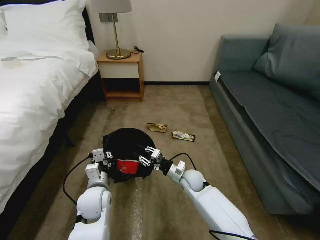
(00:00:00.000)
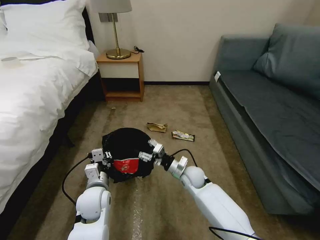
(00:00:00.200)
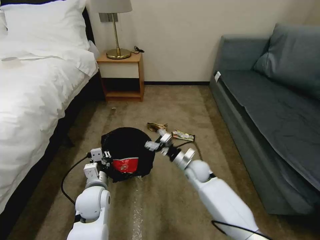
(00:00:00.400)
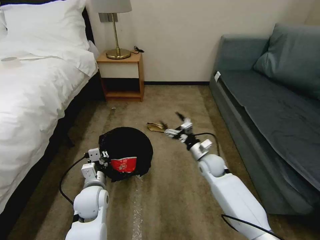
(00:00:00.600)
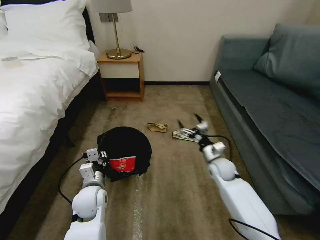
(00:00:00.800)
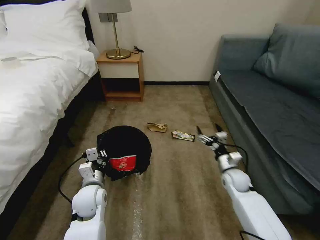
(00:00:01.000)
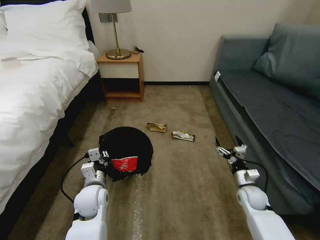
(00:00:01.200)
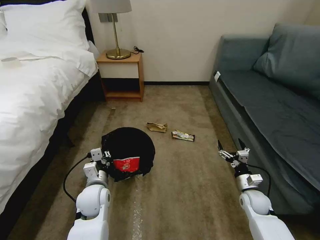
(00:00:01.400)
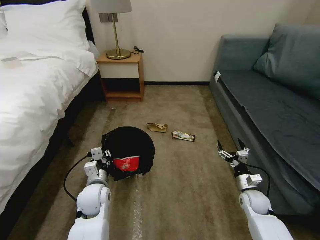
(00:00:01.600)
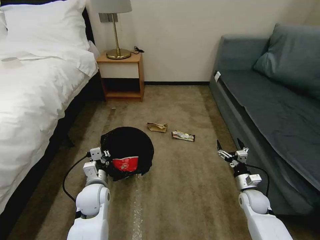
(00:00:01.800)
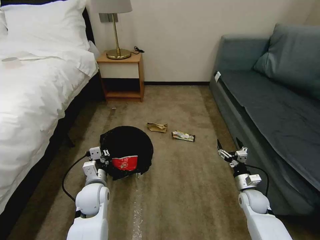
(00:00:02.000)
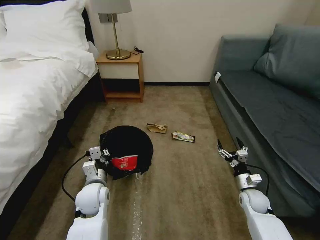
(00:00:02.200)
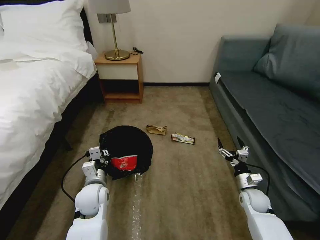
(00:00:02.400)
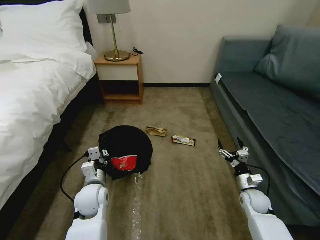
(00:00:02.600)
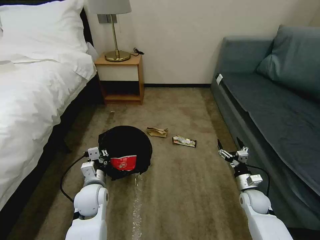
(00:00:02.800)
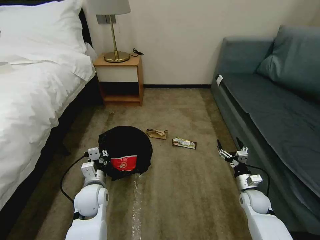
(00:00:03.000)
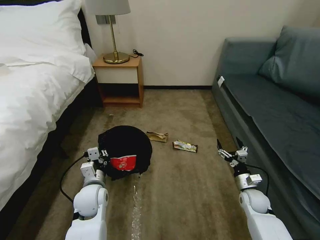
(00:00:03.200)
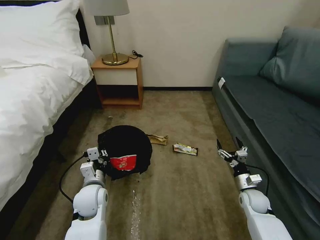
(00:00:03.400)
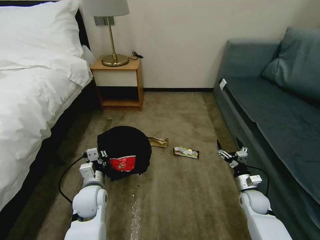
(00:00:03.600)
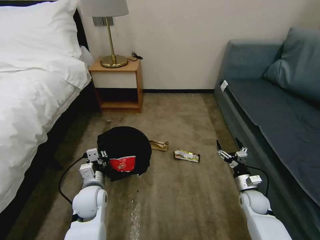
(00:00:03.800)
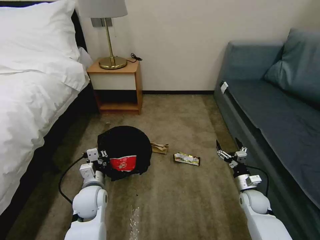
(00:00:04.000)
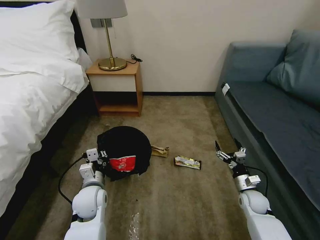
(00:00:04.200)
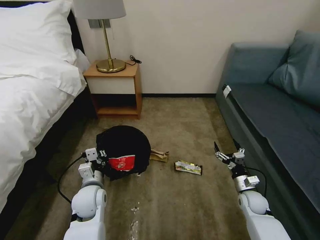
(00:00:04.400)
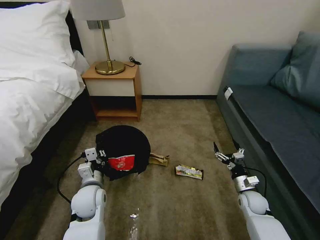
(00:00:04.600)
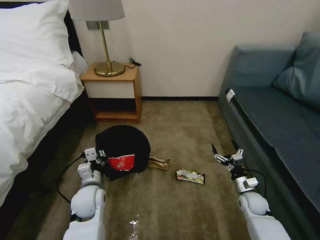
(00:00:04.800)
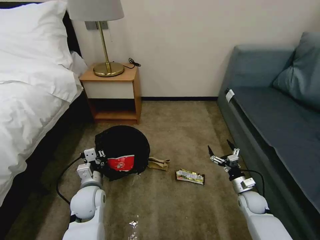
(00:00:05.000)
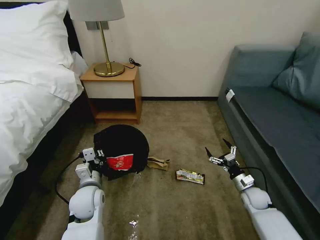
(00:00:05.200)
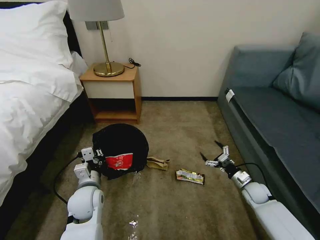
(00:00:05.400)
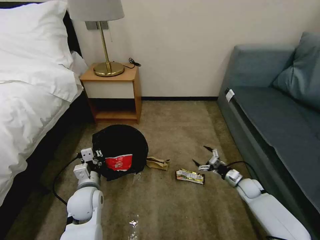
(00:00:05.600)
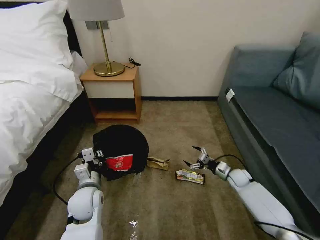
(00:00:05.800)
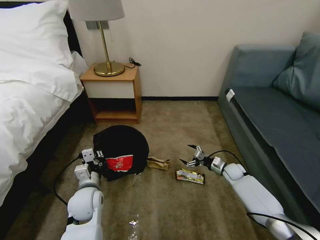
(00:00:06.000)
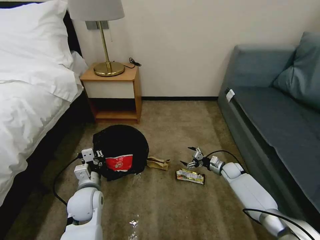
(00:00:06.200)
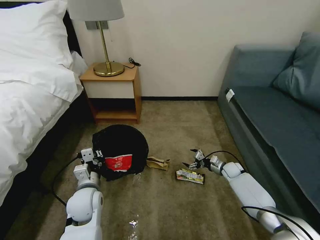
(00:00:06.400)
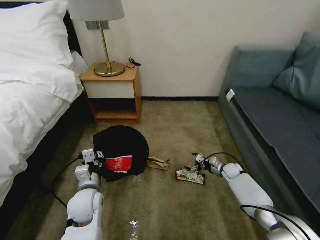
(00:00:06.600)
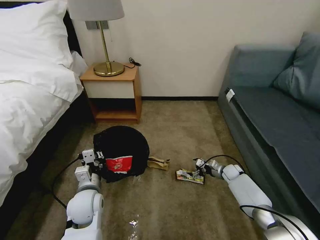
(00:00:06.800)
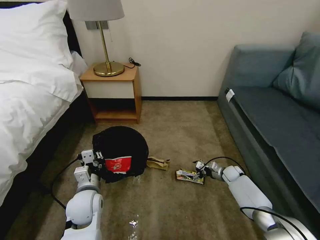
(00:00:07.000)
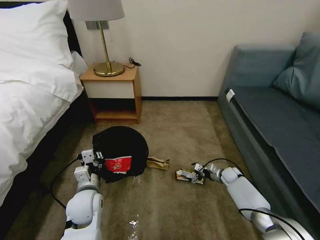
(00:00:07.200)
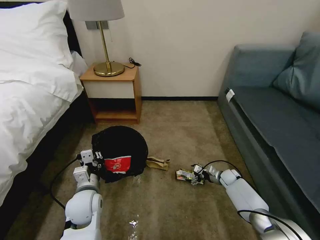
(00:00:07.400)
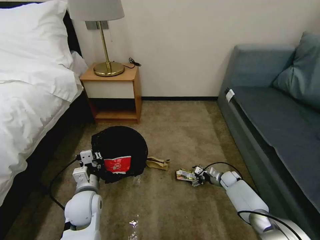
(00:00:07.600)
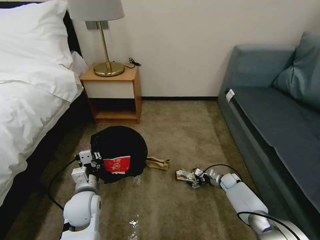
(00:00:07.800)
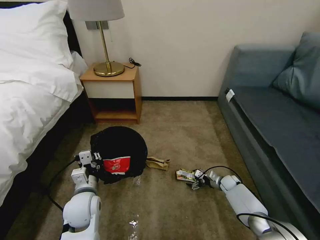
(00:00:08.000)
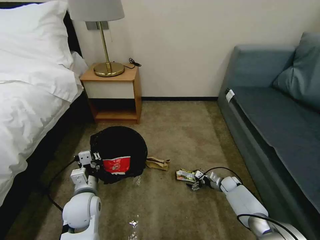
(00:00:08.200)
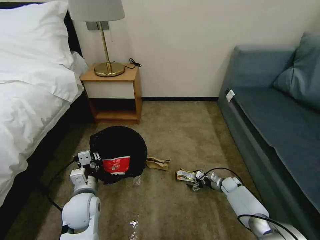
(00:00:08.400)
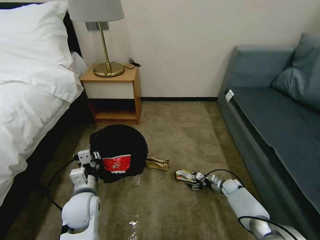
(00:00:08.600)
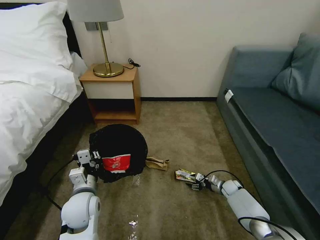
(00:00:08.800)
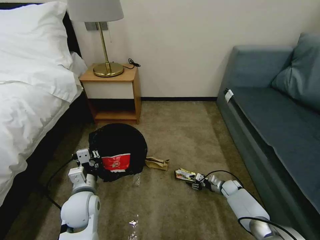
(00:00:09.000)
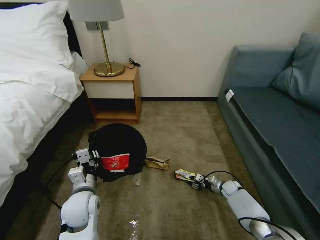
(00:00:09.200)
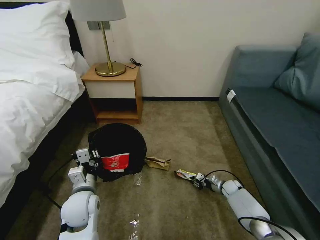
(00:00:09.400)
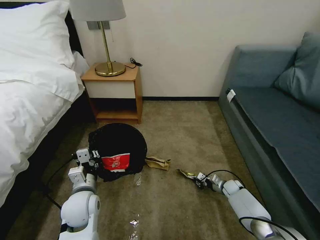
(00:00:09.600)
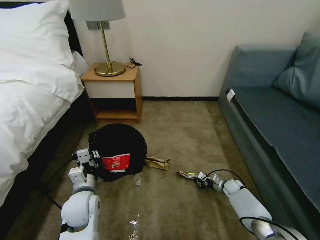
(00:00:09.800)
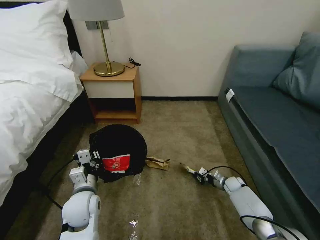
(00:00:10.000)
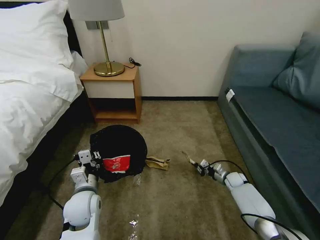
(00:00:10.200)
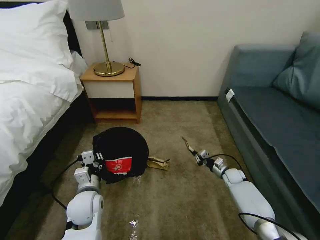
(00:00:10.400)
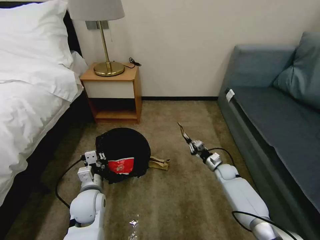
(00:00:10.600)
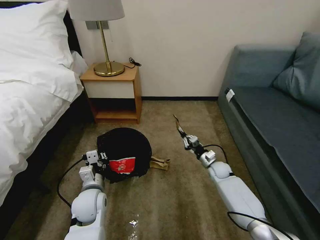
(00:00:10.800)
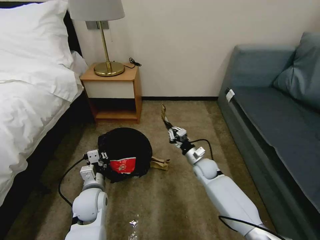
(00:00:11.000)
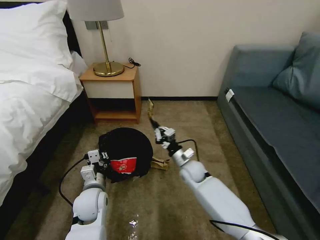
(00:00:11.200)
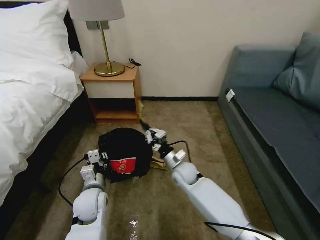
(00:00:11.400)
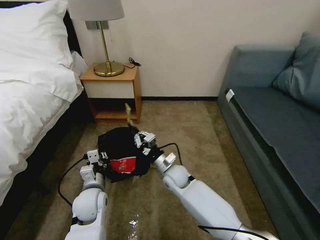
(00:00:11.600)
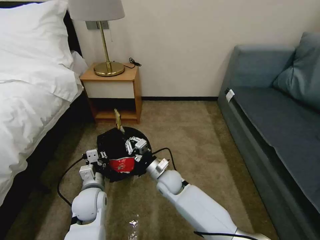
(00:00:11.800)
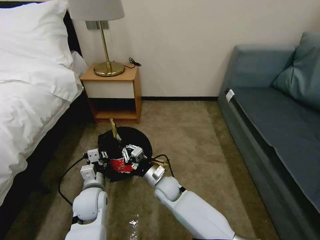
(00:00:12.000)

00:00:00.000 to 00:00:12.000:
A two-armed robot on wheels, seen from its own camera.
Task of the whole recording: Pick up the trash bin, then pick up the garbage on the floor and place it into the trash bin.
00:00:00.000 to 00:00:01.600: The right gripper goes approximately 25 cm to the right, and opens up.
00:00:01.600 to 00:00:03.000: Neither gripper changes place.
00:00:04.400 to 00:00:06.000: The right gripper shifts some 15 cm forward.
00:00:06.000 to 00:00:07.600: The right gripper heads downward, covering some 5 cm.
00:00:07.600 to 00:00:09.000: The right gripper closes up.
00:00:09.000 to 00:00:10.400: The right gripper moves upward, approximately 5 cm, and closes up.
00:00:10.400 to 00:00:12.000: The right gripper goes approximately 35 cm to the left.

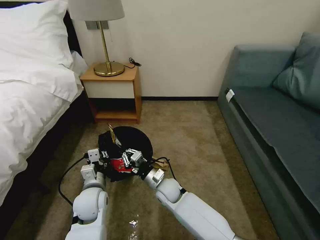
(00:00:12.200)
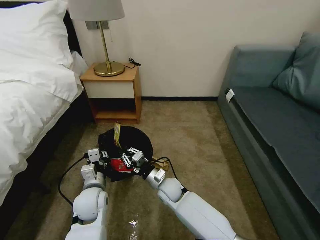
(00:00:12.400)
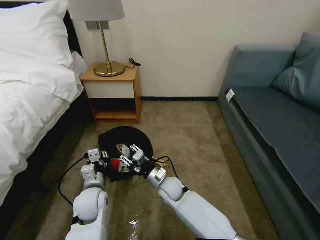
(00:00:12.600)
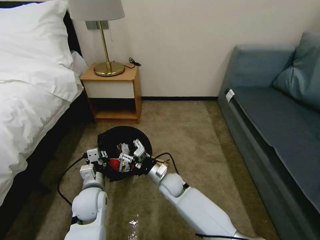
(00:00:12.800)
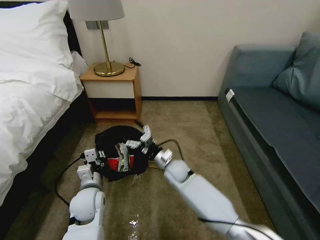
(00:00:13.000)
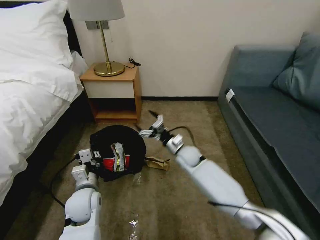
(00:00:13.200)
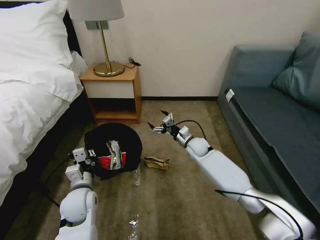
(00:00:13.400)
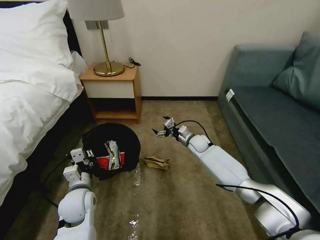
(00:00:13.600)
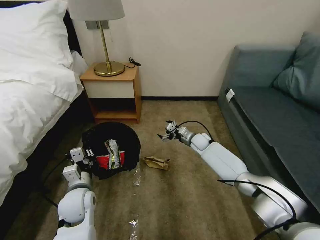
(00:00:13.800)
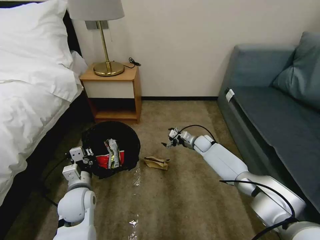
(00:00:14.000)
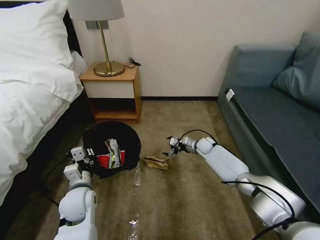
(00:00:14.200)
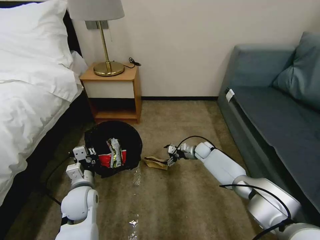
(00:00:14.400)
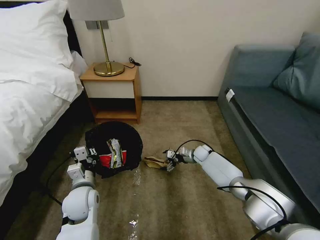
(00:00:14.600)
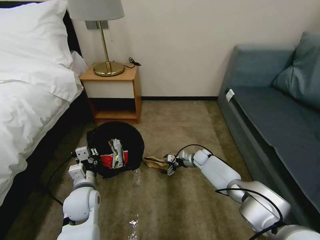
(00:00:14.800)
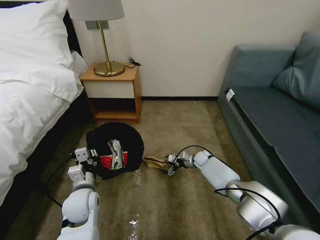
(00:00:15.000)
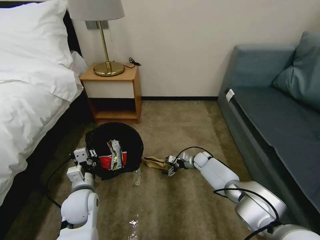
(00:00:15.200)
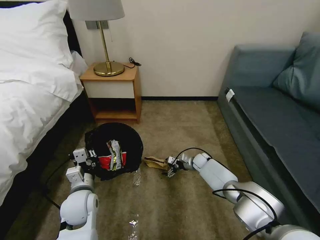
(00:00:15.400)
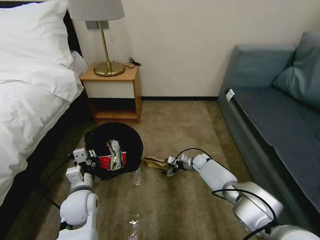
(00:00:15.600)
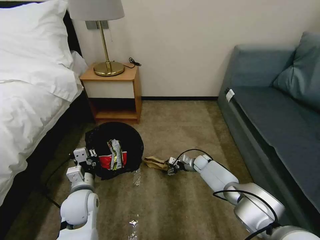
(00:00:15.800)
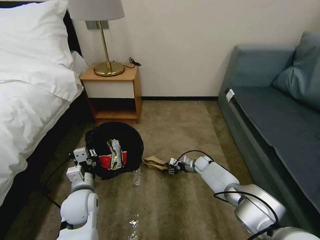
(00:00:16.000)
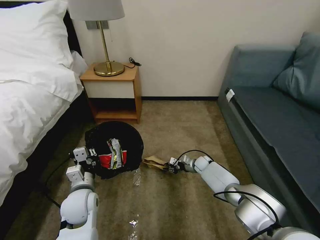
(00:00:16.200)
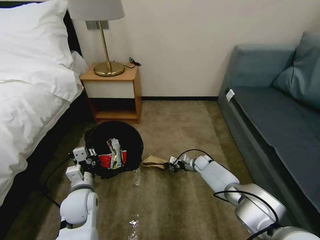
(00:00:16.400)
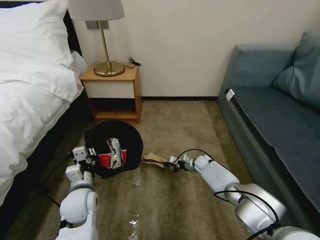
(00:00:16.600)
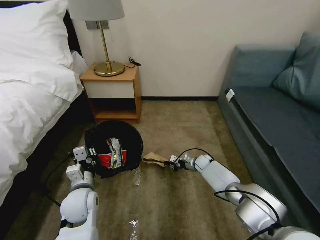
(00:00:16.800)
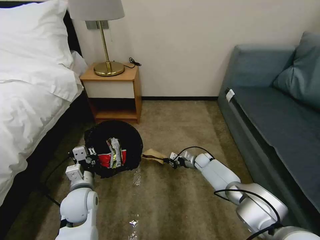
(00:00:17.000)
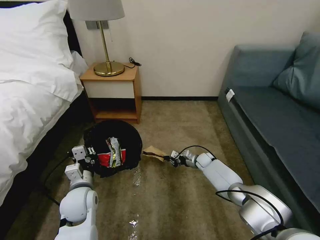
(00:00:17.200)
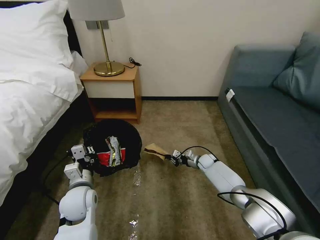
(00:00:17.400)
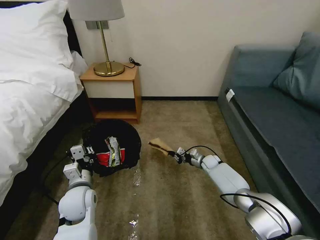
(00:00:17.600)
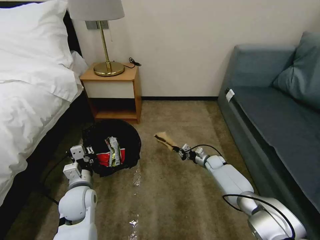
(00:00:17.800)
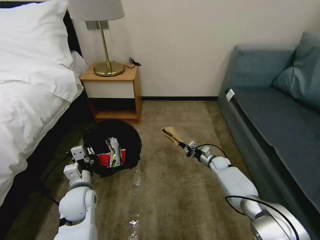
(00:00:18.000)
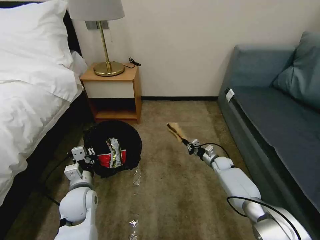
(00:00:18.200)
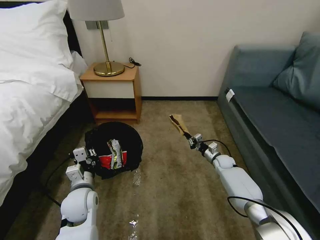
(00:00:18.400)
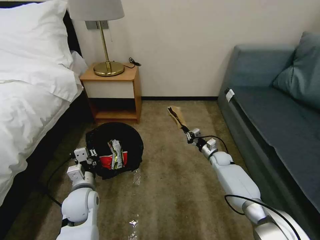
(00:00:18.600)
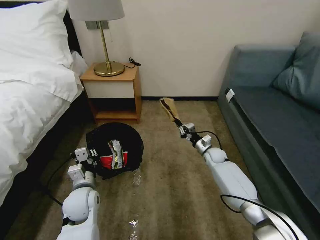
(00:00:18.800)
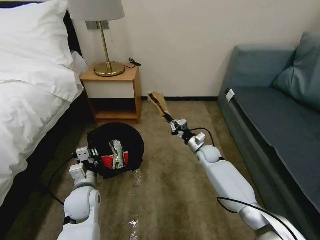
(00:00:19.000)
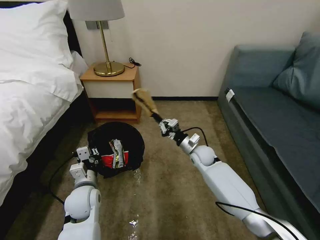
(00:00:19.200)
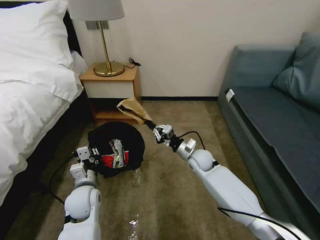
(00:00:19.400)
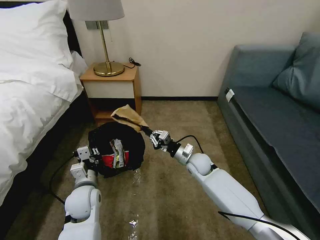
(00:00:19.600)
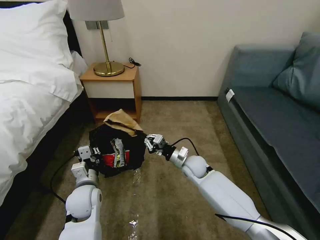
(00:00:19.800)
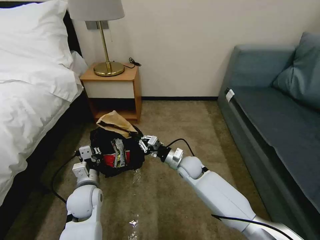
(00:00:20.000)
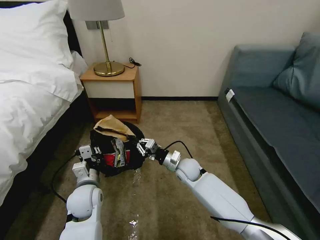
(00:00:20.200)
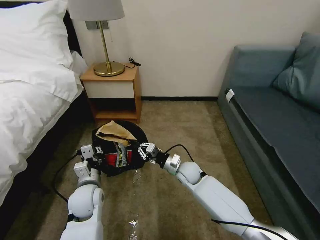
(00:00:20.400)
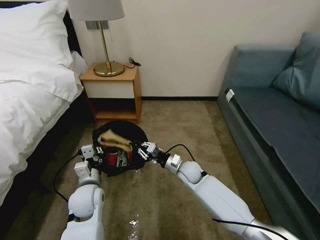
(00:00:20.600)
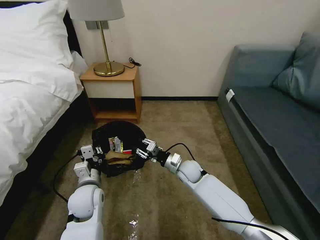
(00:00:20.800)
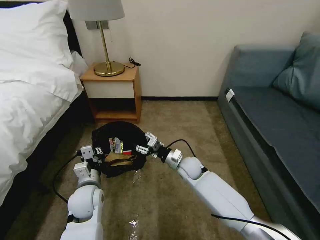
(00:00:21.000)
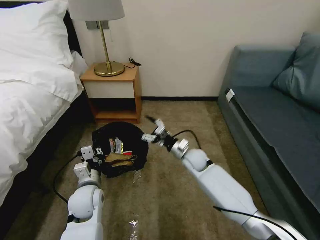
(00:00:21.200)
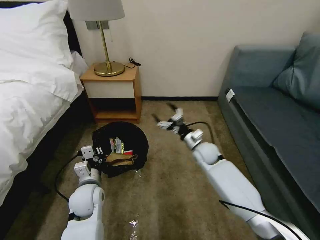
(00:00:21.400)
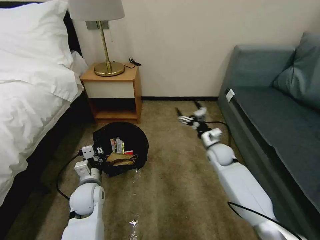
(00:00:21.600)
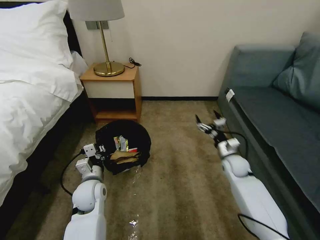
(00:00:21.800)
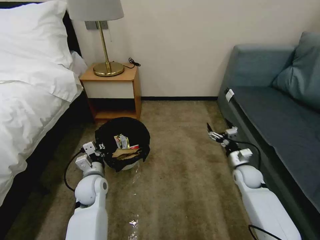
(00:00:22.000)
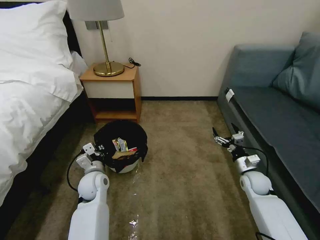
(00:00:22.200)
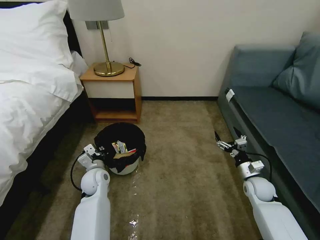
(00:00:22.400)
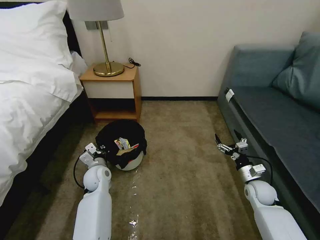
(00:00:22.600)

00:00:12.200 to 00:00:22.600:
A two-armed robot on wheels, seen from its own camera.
Task of the whole recording: Pick up the trash bin, then pick up the garbage on the floor and place it into the trash bin.
00:00:12.200 to 00:00:13.600: The right gripper travels forward and to the right by about 25 cm, and opens.
00:00:13.600 to 00:00:15.200: The right gripper shifts some 10 cm downward.
00:00:15.200 to 00:00:16.600: The right gripper closes its fingers.
00:00:16.600 to 00:00:18.200: The right gripper is displaced to the right by some 10 cm.
00:00:18.200 to 00:00:19.600: The right gripper heads to the left, upward and backward, covering some 20 cm.
00:00:19.600 to 00:00:21.200: The right gripper opens up.
00:00:21.200 to 00:00:22.600: The right gripper travels to the right and backward by about 25 cm. The left gripper moves forward, about 10 cm.
